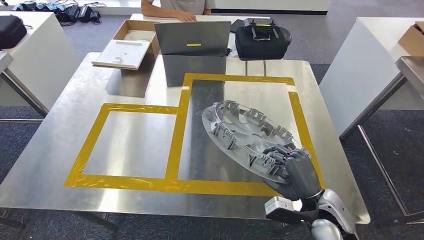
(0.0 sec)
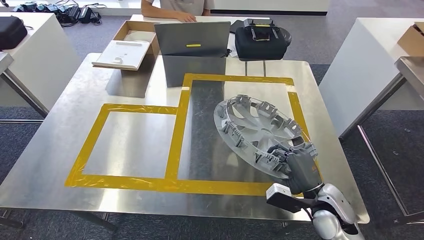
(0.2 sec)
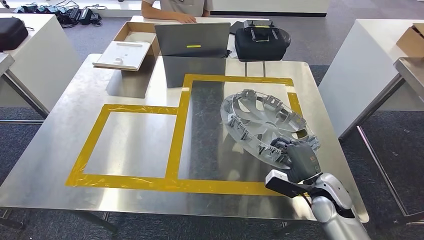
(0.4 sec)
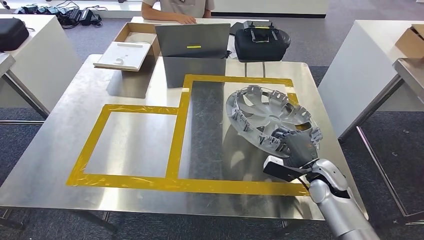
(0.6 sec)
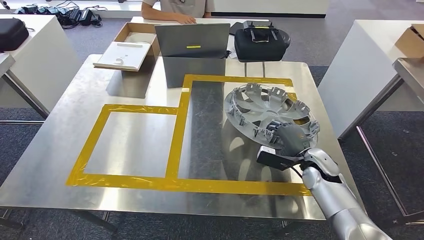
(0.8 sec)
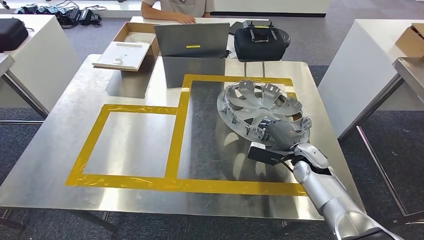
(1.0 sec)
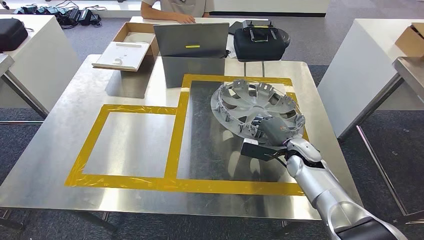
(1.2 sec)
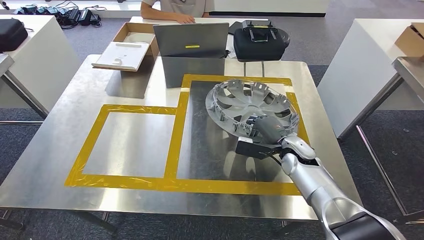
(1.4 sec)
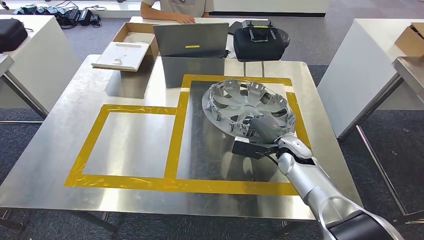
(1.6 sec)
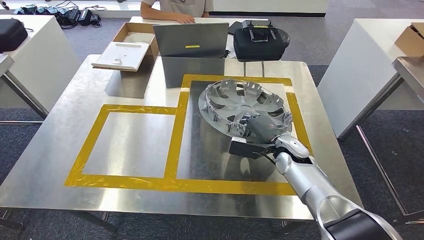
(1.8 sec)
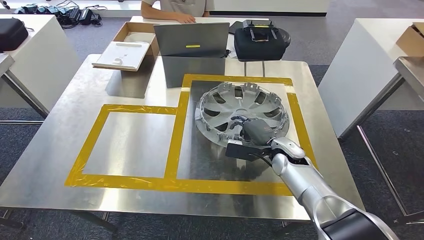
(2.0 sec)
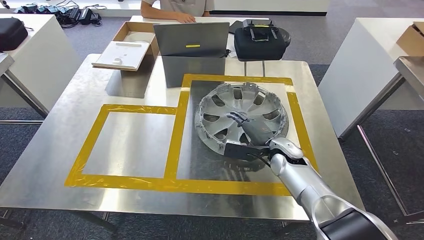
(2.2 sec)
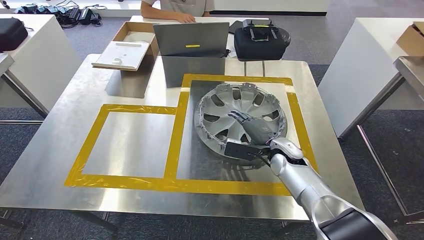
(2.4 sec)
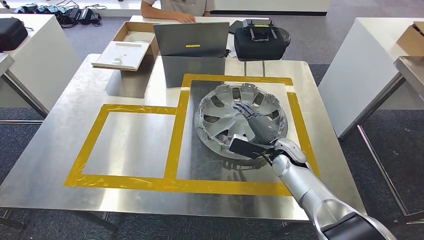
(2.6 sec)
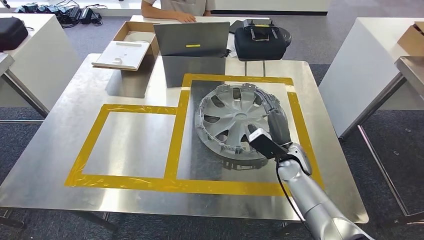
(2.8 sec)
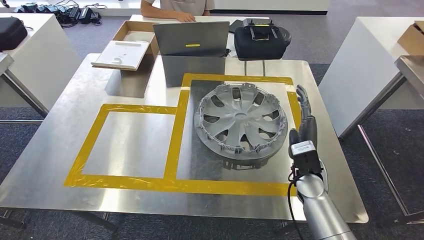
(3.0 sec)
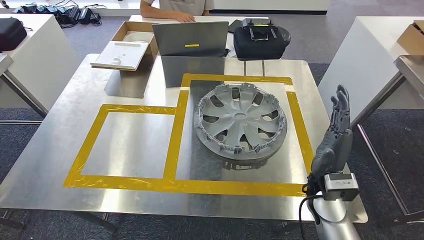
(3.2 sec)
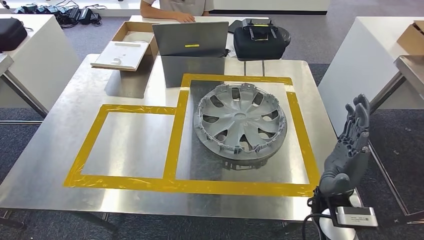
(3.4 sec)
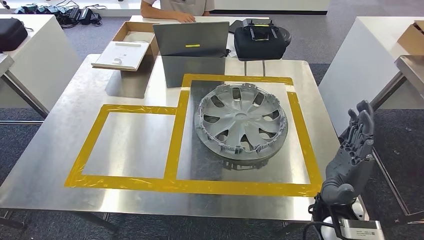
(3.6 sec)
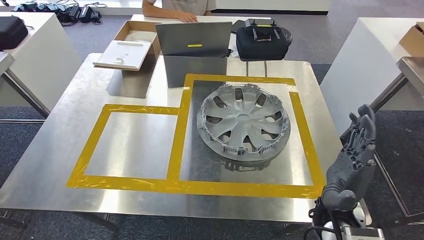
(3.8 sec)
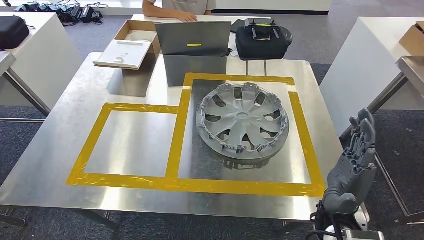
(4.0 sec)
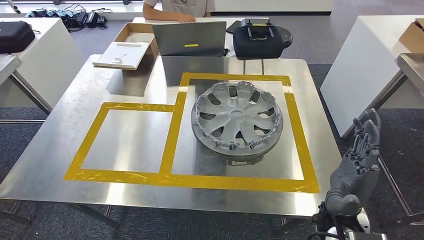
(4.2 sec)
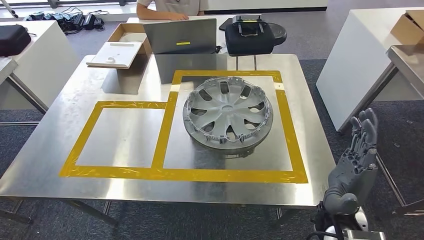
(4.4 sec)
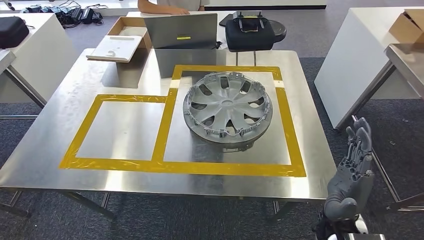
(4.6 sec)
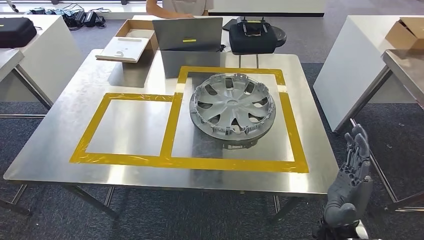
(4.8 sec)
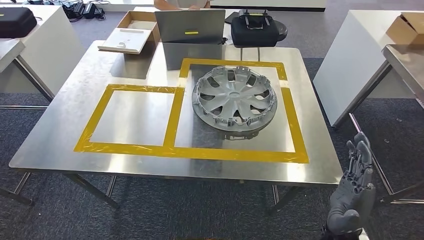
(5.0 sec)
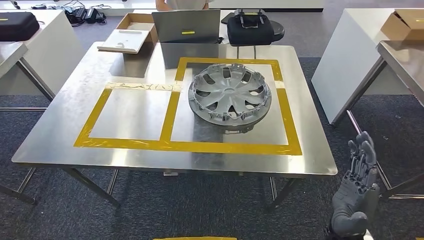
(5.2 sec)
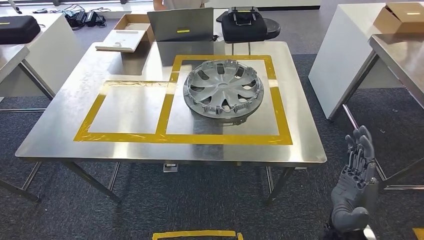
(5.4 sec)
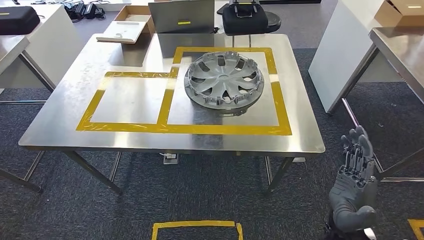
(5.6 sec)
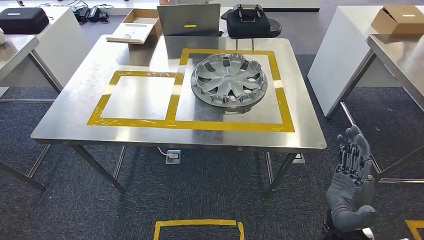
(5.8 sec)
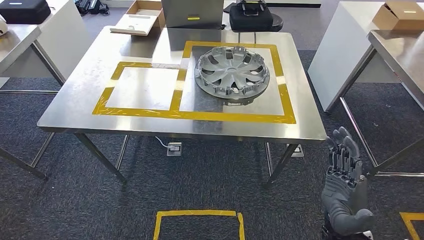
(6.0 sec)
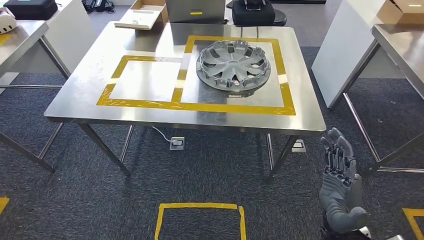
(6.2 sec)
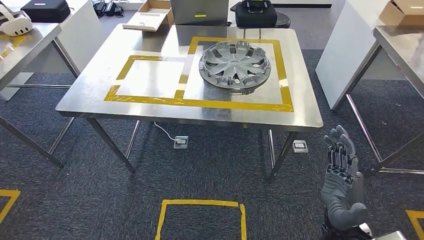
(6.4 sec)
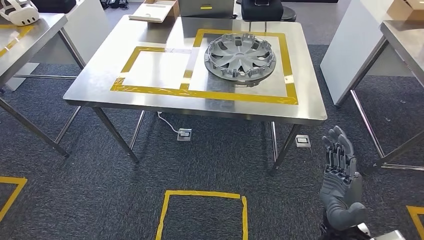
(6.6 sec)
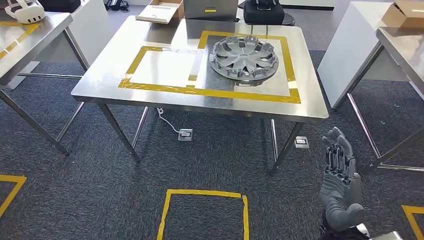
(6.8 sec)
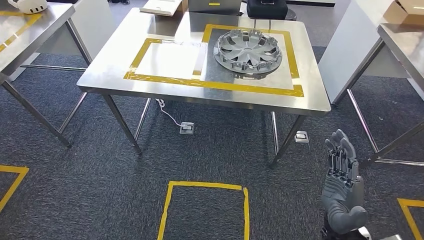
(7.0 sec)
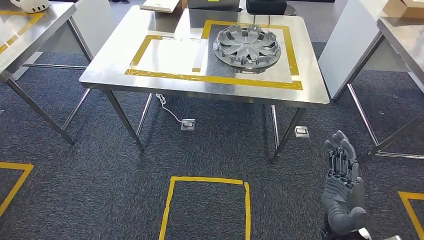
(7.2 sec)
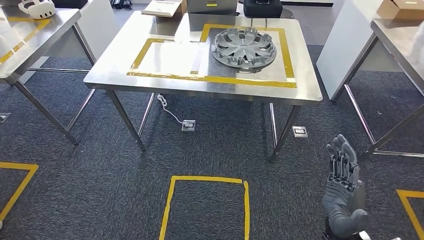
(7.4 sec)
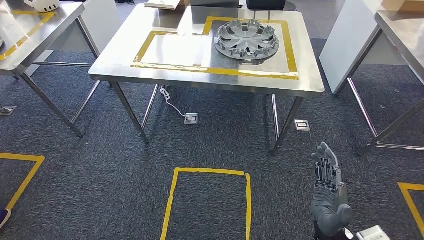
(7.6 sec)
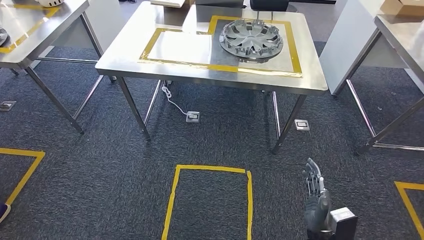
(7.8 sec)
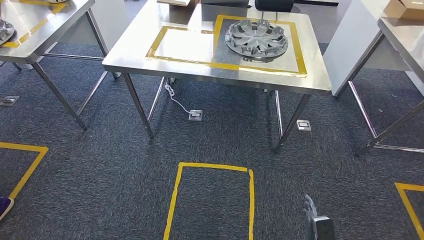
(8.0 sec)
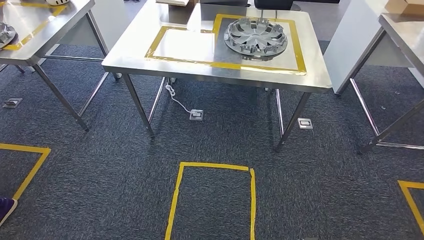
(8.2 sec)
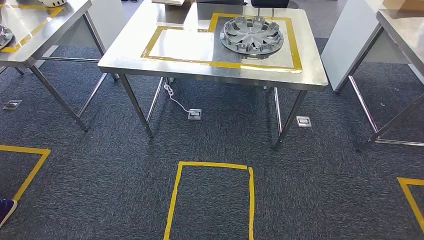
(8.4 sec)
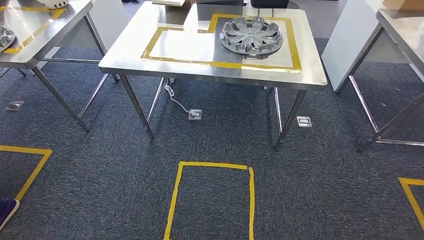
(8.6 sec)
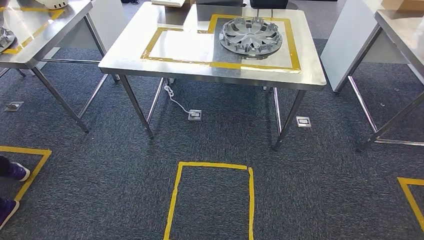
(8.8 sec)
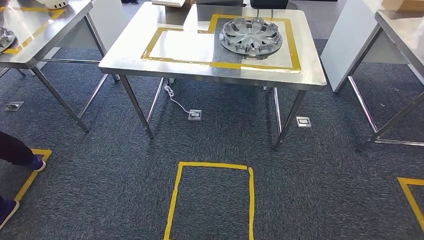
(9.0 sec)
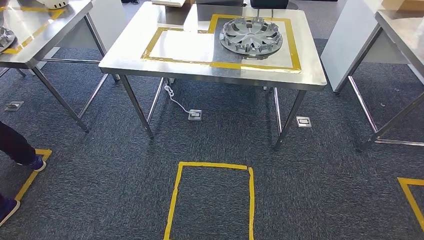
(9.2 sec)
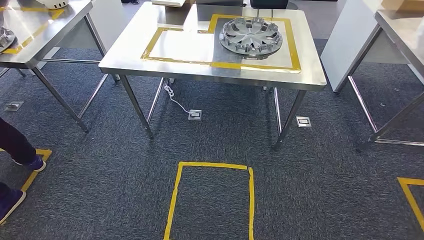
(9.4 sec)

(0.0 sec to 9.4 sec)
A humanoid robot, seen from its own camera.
Step, 0.0 sec - 4.2 sec: Insert the small parts into the corresponding holes on the workbench.
Step, 4.4 sec - 9.2 sec: Move to the initial position of the workbench.
1.6 sec - 3.2 sec: The right hand shifts approximately 15 cm backward and upward.
7.8 sec - 9.4 sec: The right hand travels downward and backward by about 25 cm.
